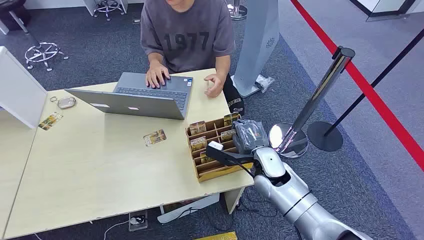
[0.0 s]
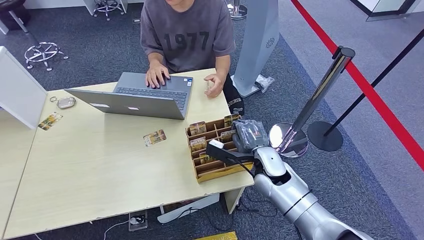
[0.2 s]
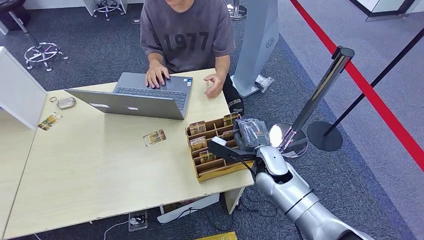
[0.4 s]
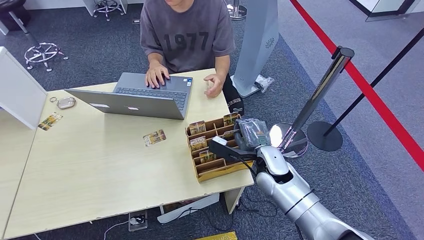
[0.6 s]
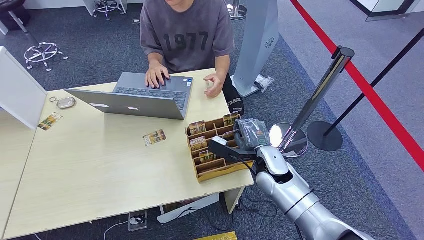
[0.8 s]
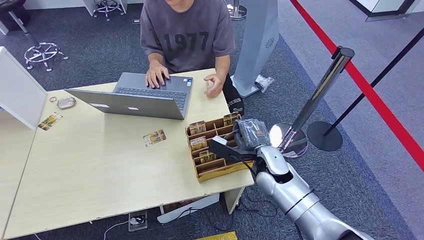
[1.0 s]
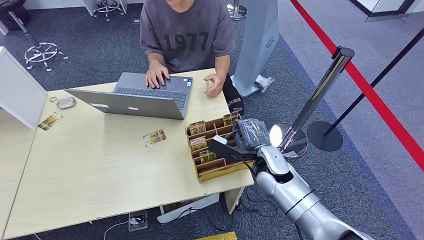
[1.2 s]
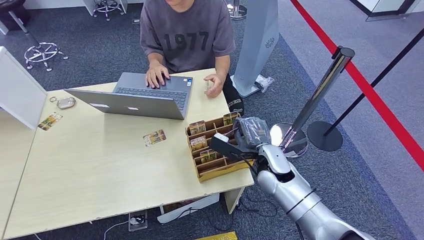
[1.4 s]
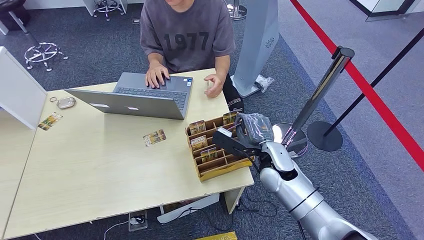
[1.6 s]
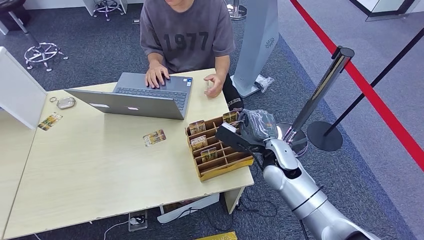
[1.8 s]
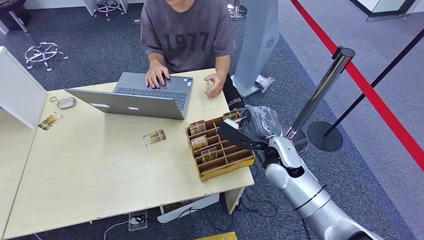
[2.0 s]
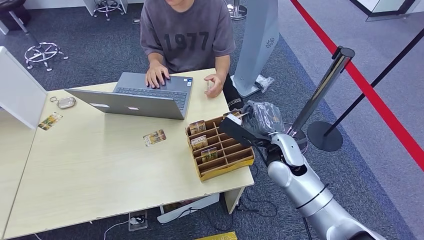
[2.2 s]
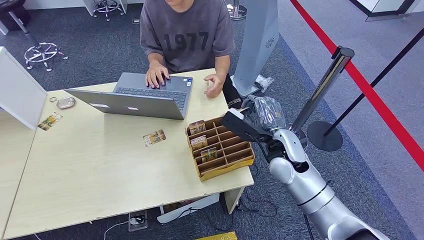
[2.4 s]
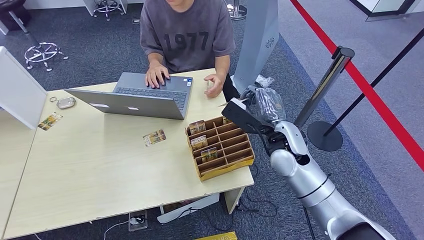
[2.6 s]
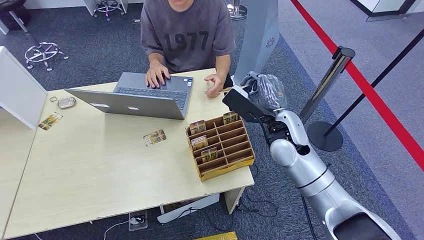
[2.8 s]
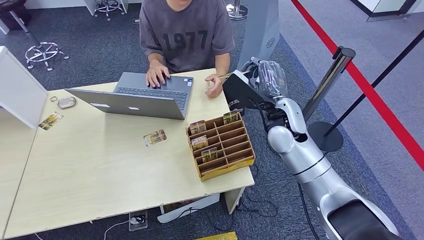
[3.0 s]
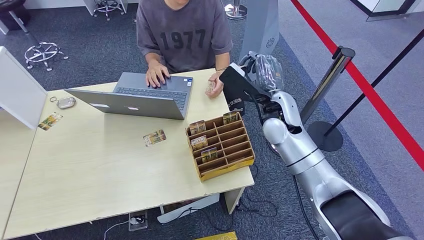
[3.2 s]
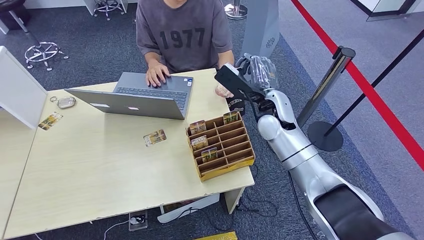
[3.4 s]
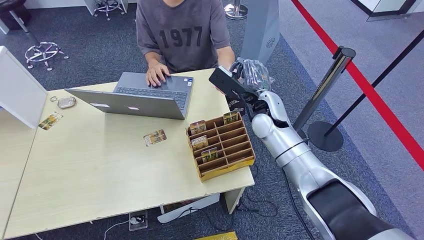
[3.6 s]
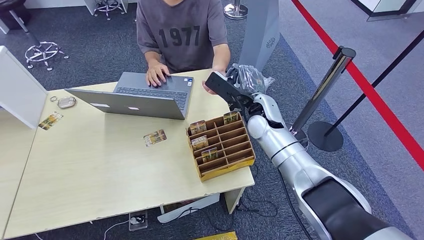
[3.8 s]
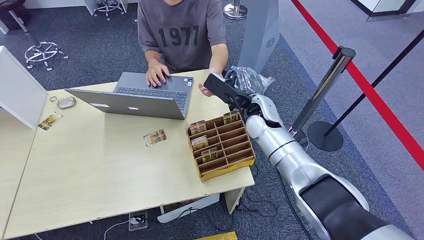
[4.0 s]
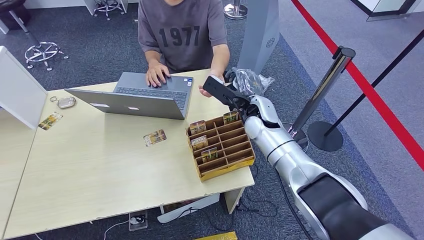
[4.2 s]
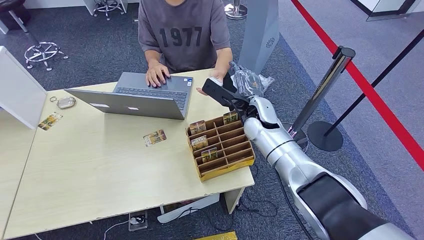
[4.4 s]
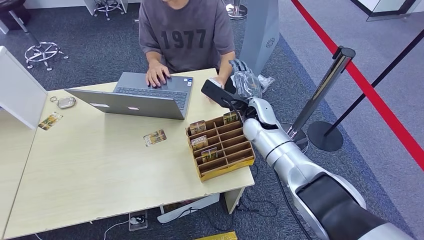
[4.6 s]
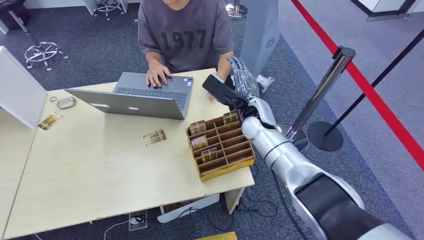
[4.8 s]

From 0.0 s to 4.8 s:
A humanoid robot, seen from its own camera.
Step, from 0.0 s to 0.8 s: Pick up the room card from the card holder.
Step, from 2.8 s to 4.6 s: Hand the room card to the target.
From 1.6 s to 3.2 s: The right hand heads upward and forward, covering roughly 15 cm.
From 3.2 s to 4.8 s: The right hand changes place by roughly 5 cm.
